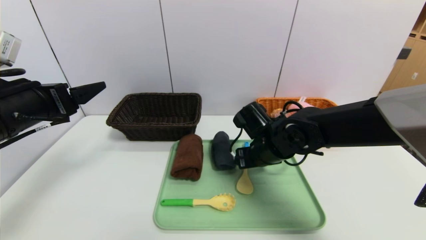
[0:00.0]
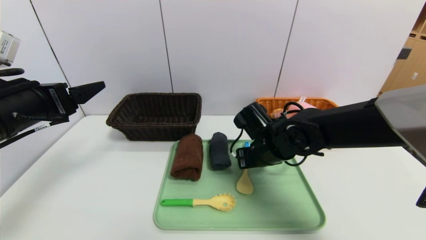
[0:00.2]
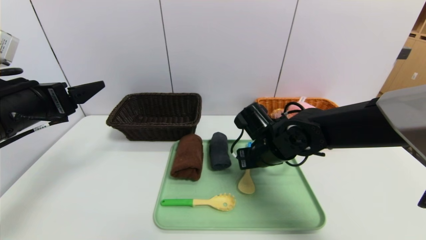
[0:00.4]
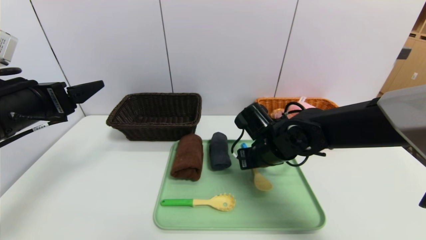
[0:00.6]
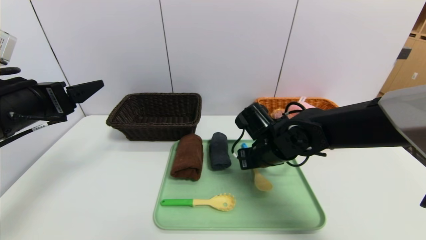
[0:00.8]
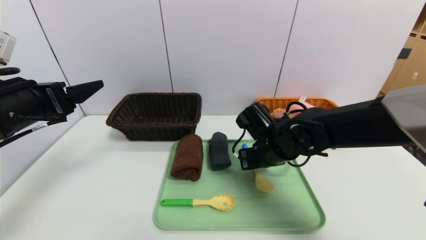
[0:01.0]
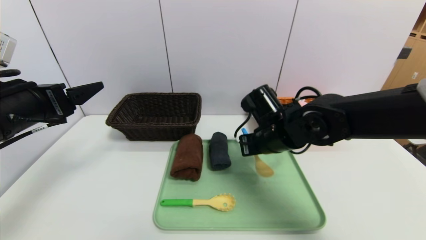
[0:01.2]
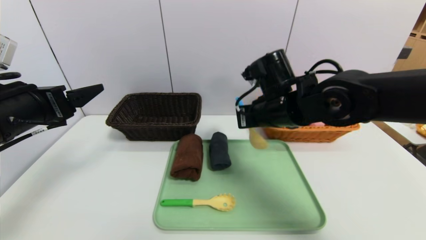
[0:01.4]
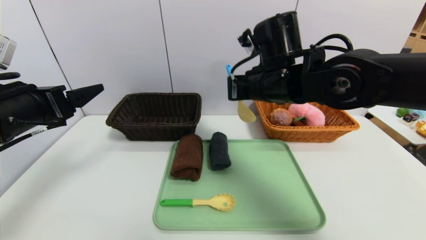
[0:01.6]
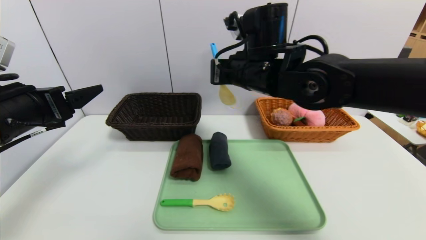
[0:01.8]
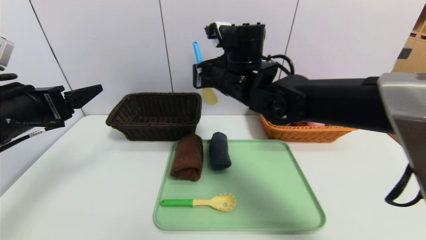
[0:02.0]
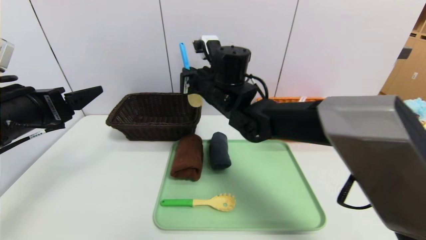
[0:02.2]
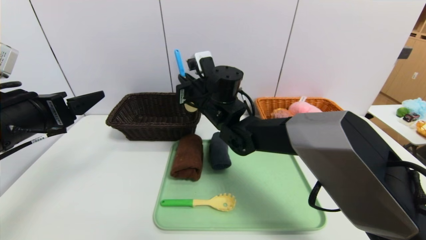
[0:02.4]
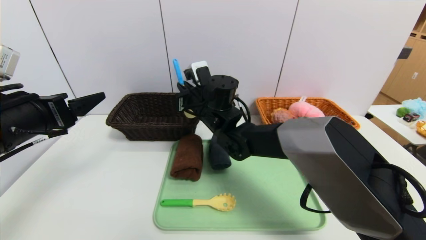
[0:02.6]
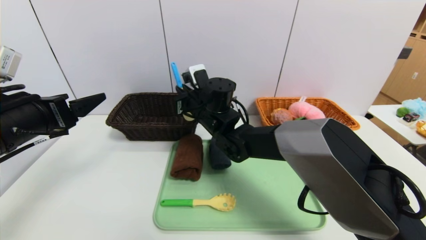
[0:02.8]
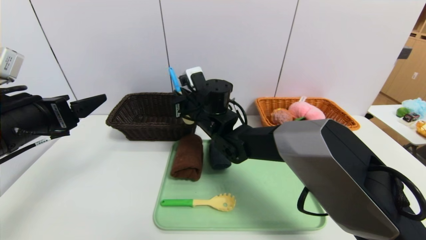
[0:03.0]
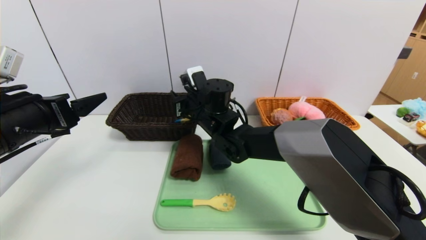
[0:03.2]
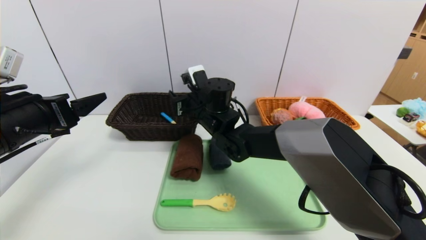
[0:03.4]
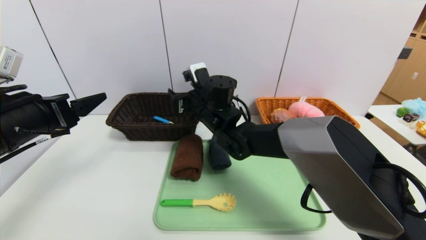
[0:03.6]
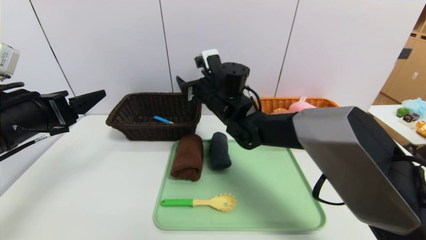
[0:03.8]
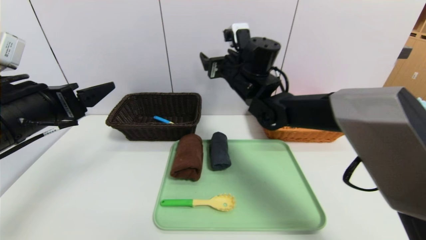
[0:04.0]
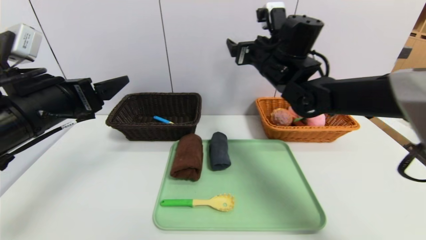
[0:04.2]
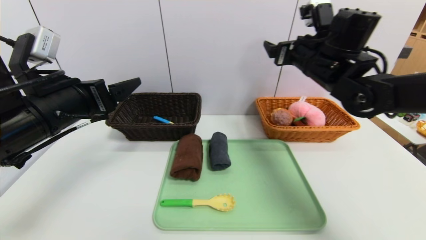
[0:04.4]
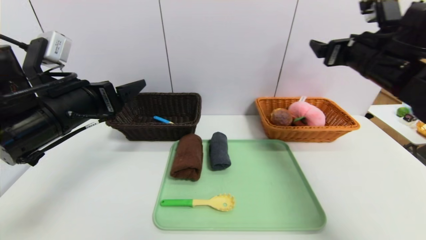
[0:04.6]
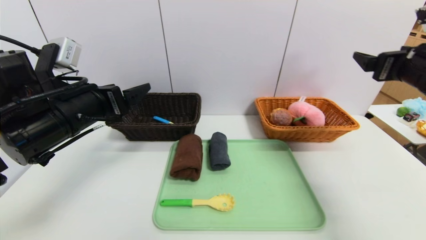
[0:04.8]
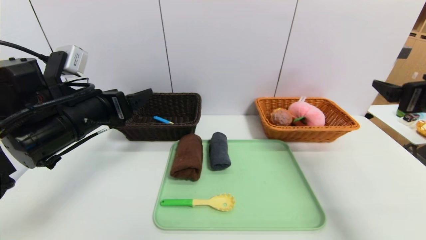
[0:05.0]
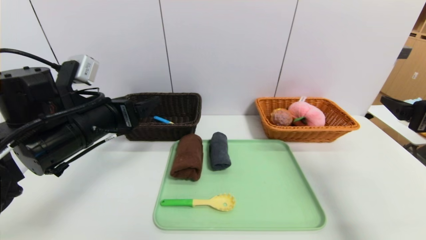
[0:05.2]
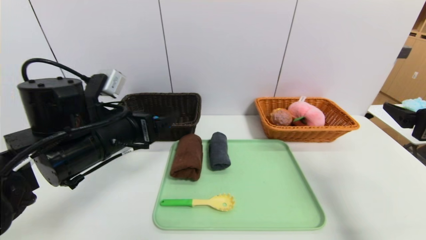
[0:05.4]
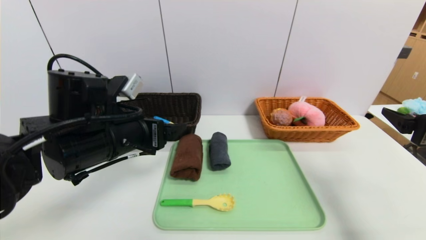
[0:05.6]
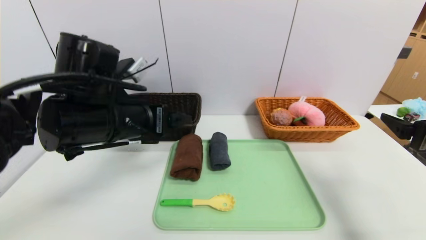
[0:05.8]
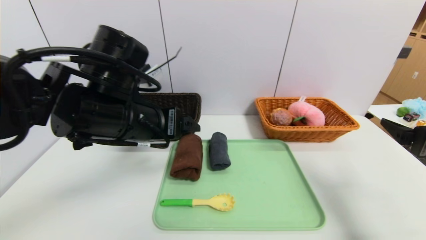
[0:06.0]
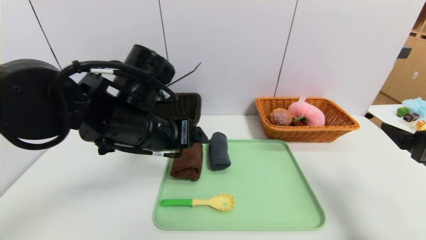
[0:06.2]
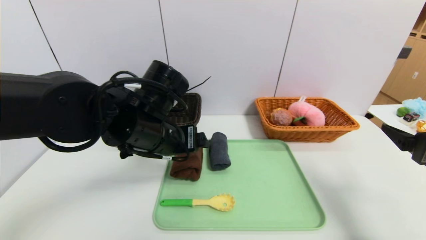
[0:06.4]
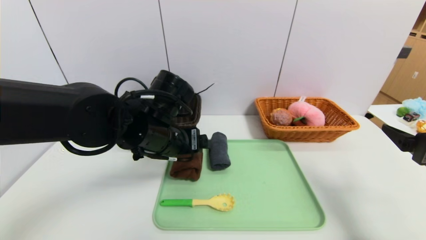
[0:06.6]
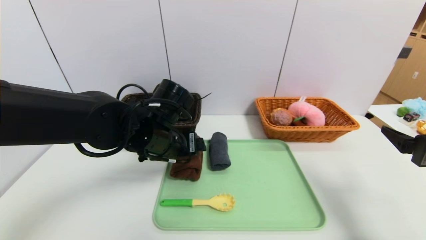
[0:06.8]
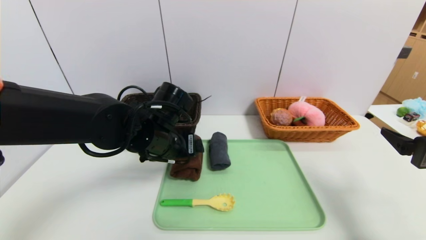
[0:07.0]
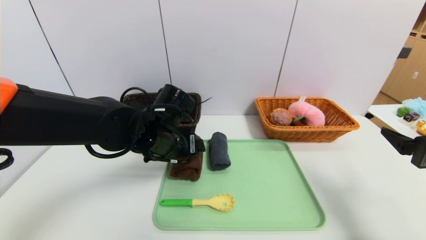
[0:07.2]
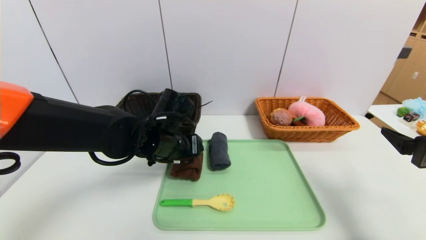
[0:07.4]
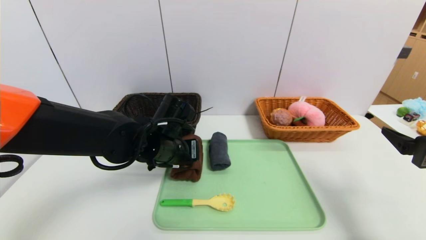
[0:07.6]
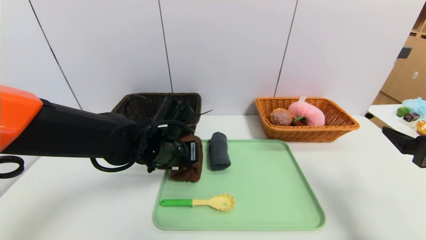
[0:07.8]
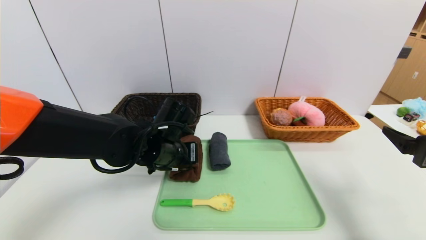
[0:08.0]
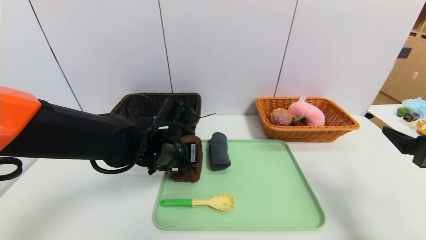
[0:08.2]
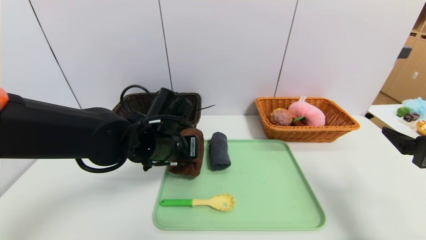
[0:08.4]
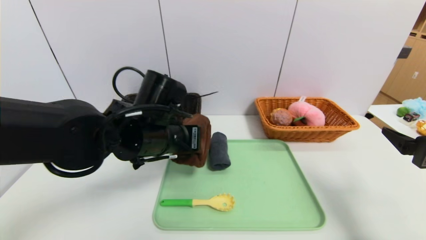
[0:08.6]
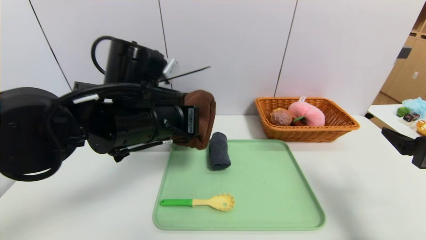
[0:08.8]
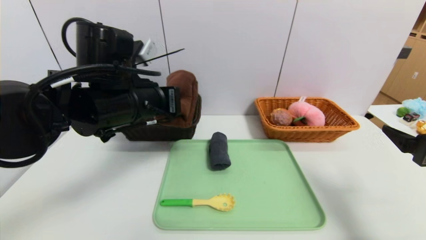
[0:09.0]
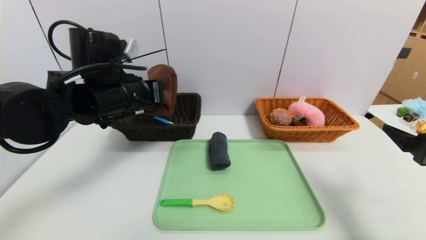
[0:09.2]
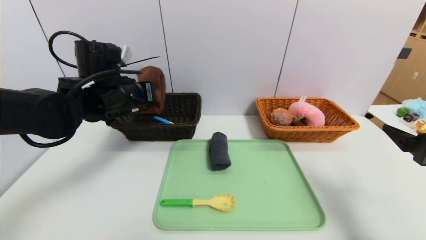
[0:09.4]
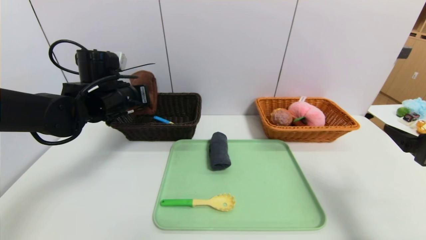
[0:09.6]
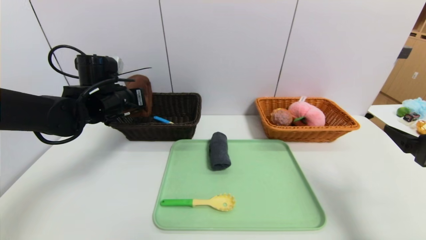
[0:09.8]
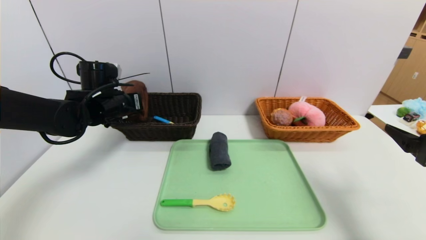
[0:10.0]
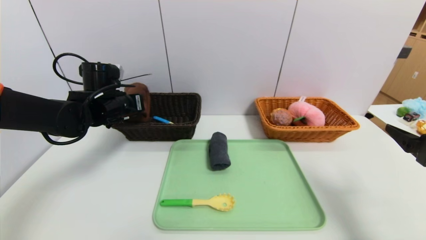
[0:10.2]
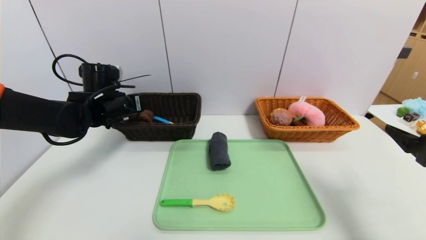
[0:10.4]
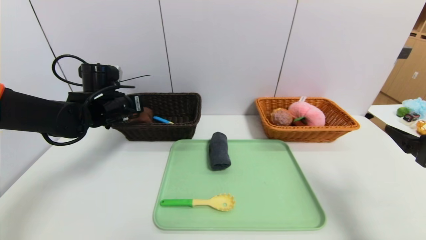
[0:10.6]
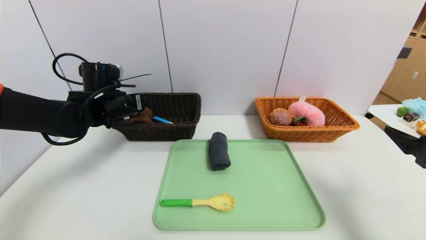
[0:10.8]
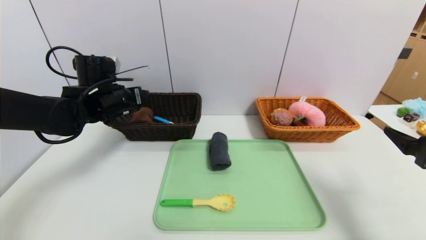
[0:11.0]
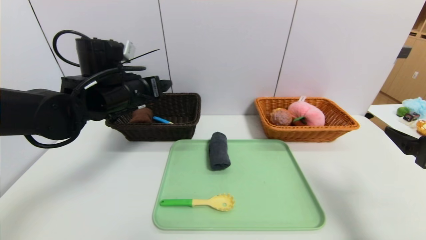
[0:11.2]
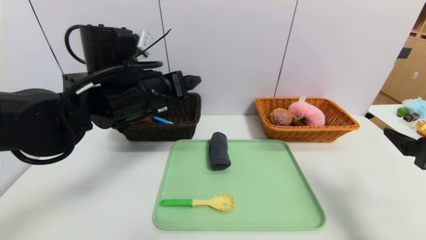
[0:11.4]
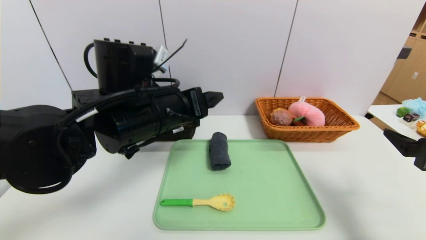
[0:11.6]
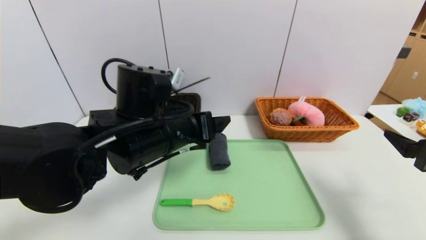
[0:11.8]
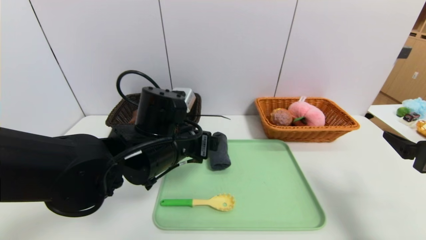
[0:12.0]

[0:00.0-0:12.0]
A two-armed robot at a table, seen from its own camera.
Task of the whole recording: place the food in the right basket with the right gripper, and place the non food items in the left basket with the left gripper.
Step, 0:04.0 to 0:11.0: Grasp the brown towel and put it in the left basket.
0:00.0 to 0:01.6: The right gripper is displaced upward by some 15 cm, and closes.
0:01.6 to 0:03.0: The right gripper moves to the left, downward and forward, some 15 cm.
0:03.0 to 0:04.4: The right gripper shifts some 25 cm to the right and upward, and opens its fingers, while the left gripper goes some 5 cm to the right.
0:04.4 to 0:06.0: The left gripper travels to the right by some 10 cm. The right gripper shifts some 25 cm backward and to the right.
0:06.0 to 0:07.6: The left gripper goes roughly 10 cm downward and forward, and closes up.
0:07.6 to 0:09.0: The left gripper travels upward by approximately 10 cm, and closes.
0:09.0 to 0:10.4: The left gripper moves forward, to the left and downward, some 15 cm, and opens.
0:10.4 to 0:12.0: The left gripper goes some 20 cm to the right and backward, and opens its fingers.

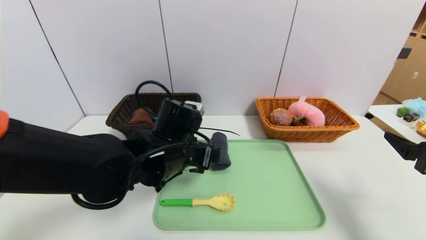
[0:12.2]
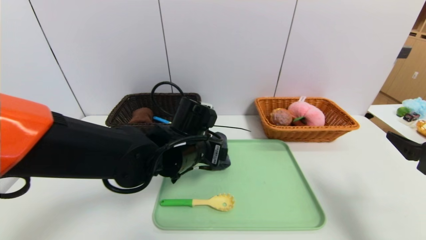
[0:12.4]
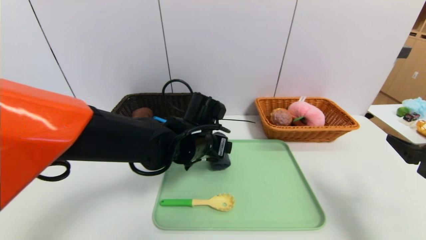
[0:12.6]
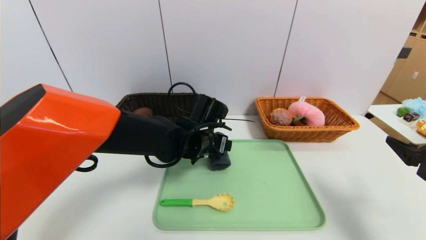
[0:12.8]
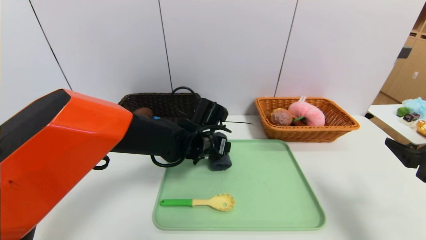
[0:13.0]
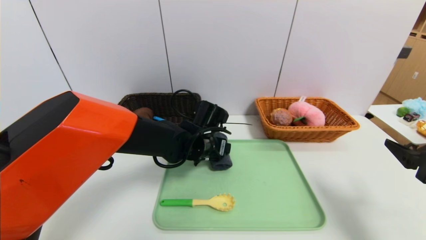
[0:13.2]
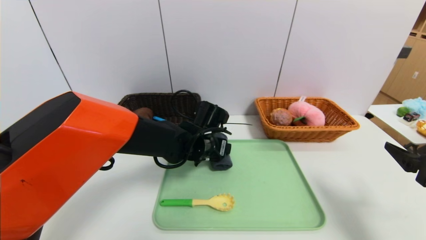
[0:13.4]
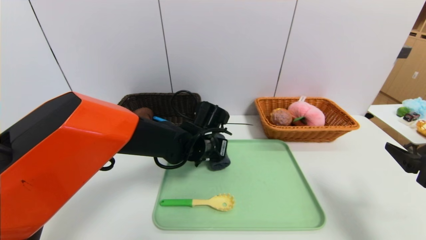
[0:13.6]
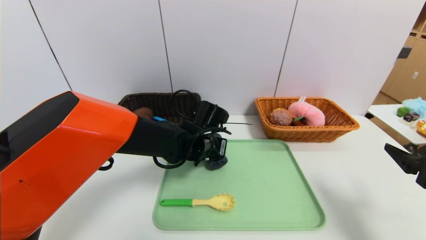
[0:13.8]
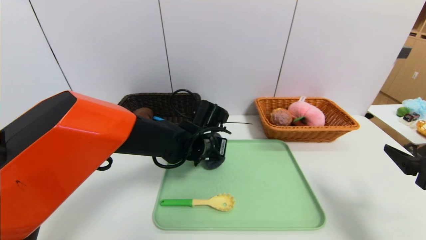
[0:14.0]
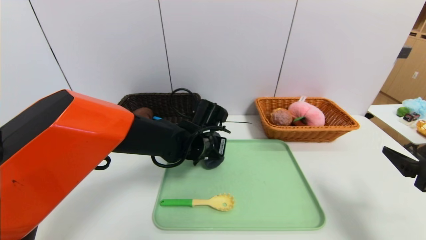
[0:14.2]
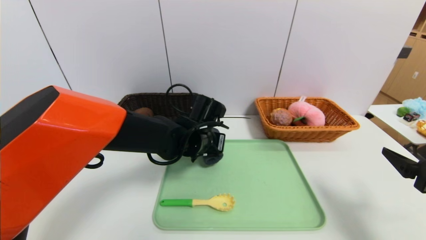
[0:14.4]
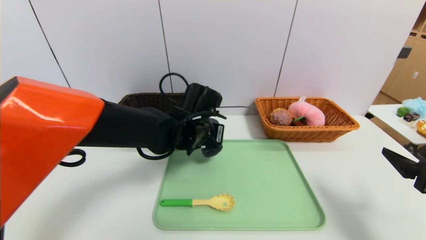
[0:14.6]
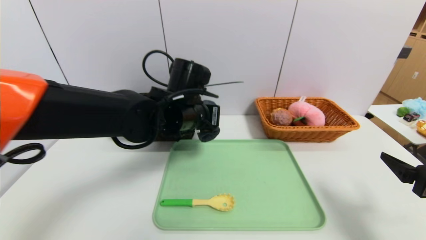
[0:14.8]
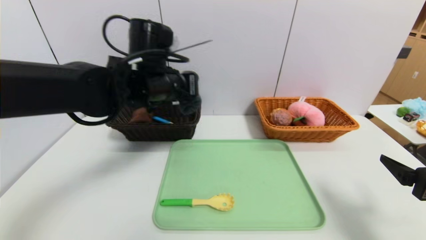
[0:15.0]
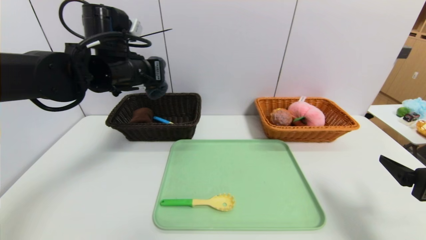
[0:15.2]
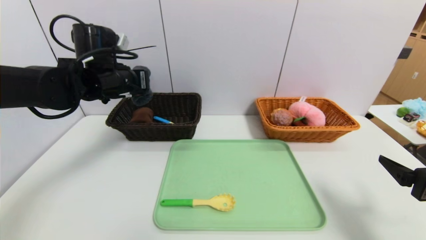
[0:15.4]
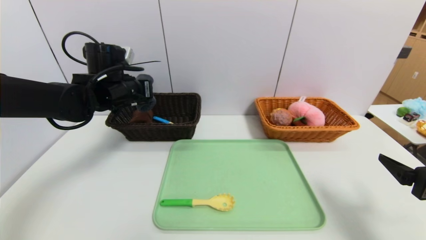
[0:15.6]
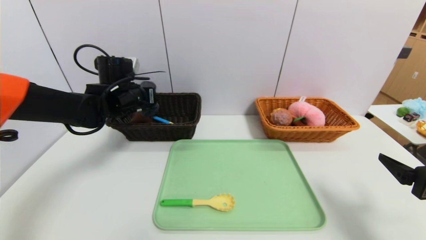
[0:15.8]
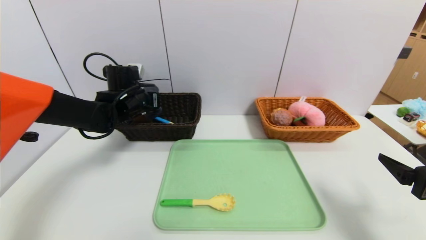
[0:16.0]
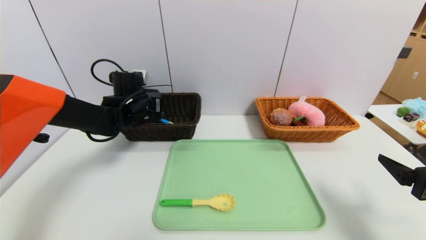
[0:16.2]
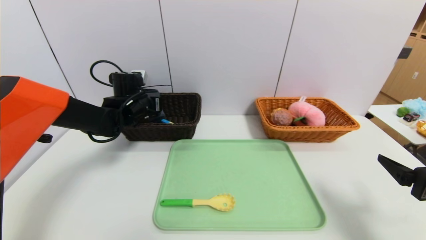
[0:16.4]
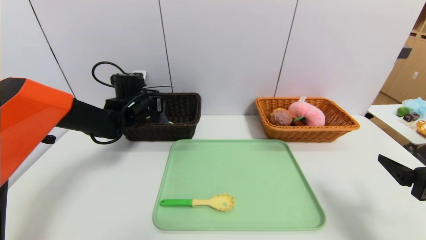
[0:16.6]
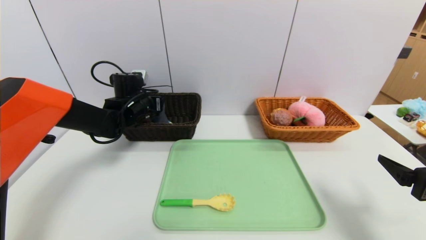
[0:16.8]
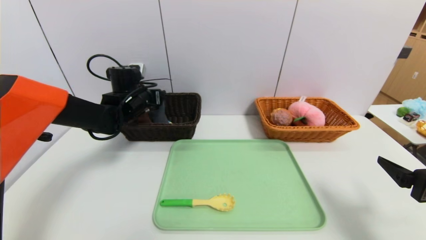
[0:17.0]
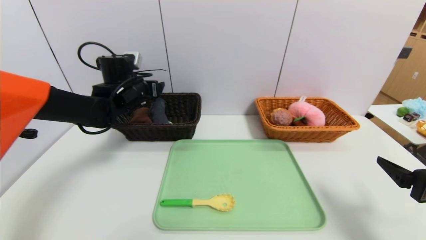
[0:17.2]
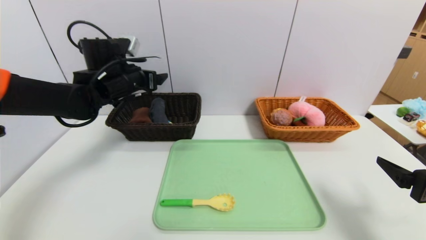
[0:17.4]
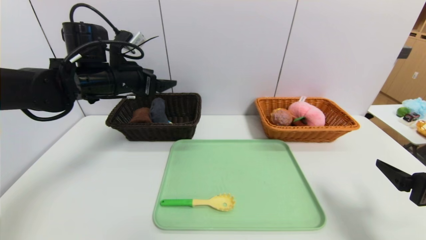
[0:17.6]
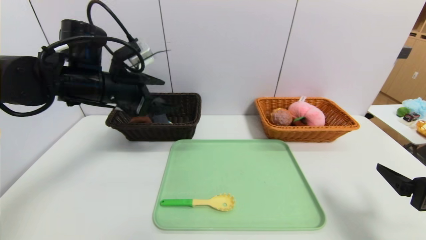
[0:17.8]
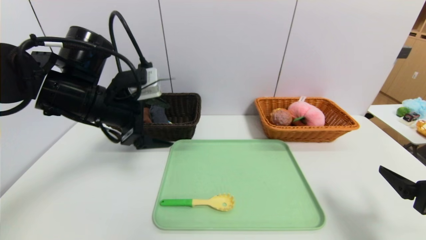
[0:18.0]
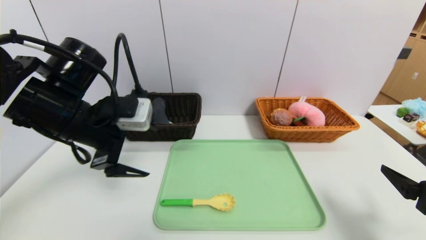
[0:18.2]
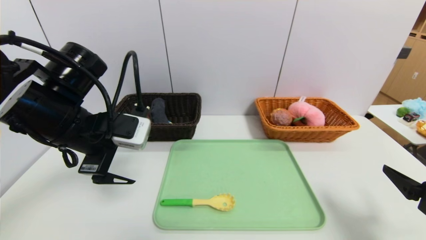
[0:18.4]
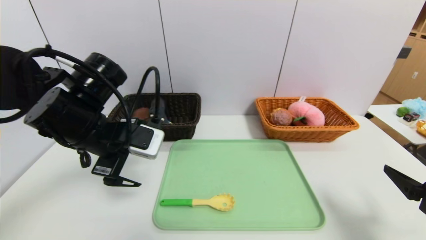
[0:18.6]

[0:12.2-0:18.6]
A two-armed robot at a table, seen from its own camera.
Task of the whole recording: place the food in the right basket with the right gripper, and place the non food items in the left basket with the left gripper.
Step, 0:12.2 to 0:17.0: Grasp the grey towel and put it in the left basket.
0:12.2 to 0:13.8: The left gripper goes roughly 10 cm forward, and closes up.
0:13.8 to 0:15.4: The left gripper shifts roughly 25 cm to the left and upward.
0:15.4 to 0:17.0: The left gripper travels downward and forward by some 10 cm, and opens up.
0:17.0 to 0:18.6: The left gripper shifts about 20 cm backward.
